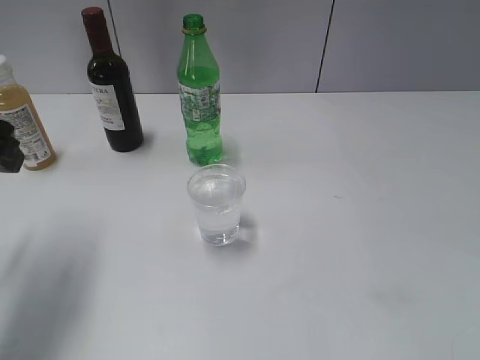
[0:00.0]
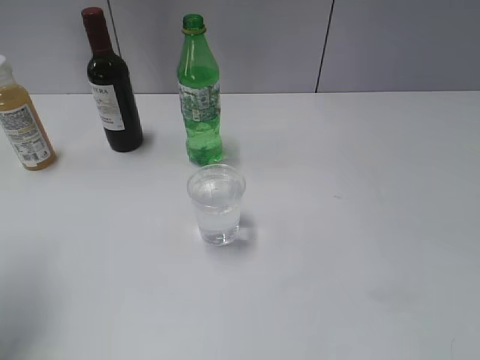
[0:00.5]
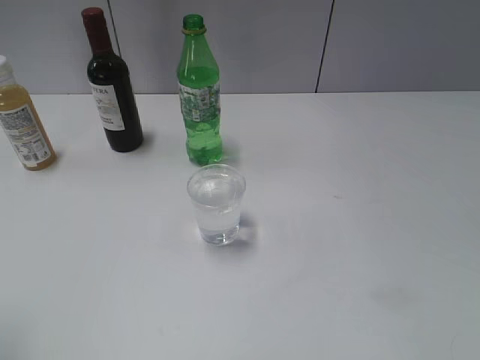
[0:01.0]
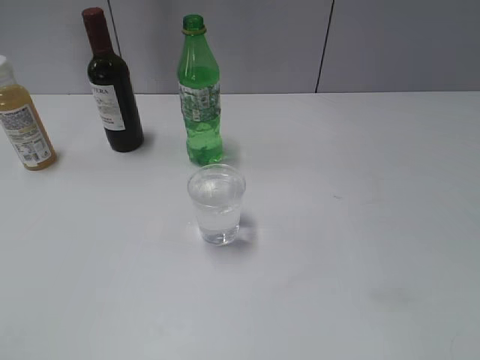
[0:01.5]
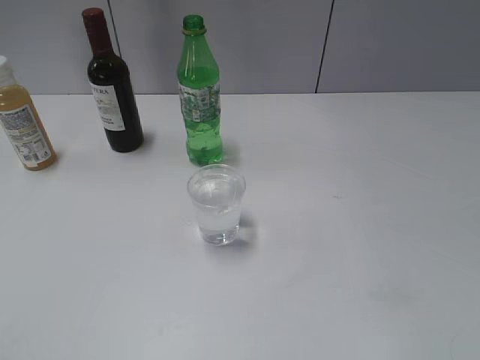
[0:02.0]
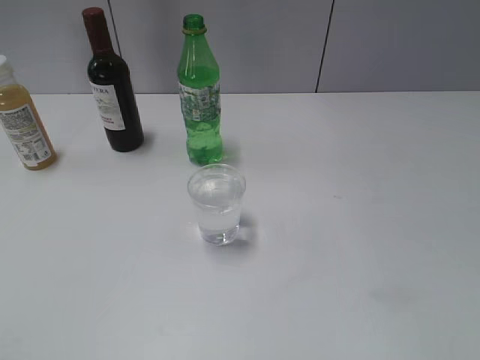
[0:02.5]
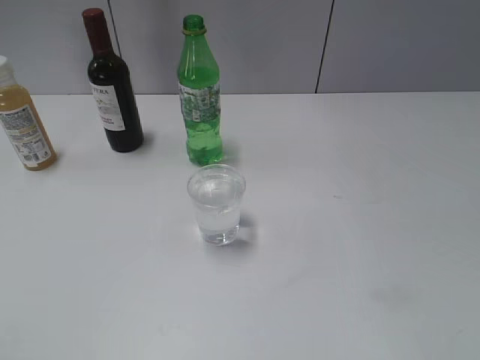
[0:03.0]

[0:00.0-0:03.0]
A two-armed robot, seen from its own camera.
0:00.0 to 0:01.5: The left gripper is displaced backward by some 20 cm.
